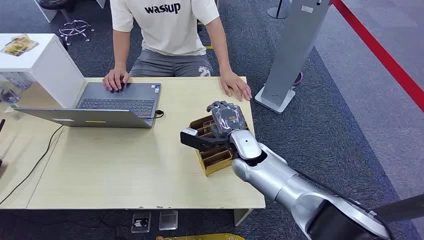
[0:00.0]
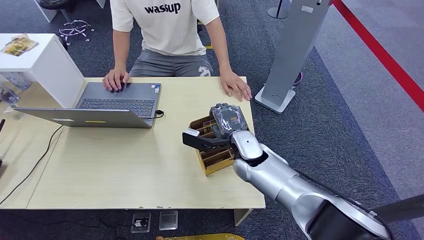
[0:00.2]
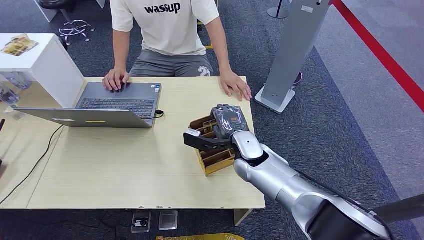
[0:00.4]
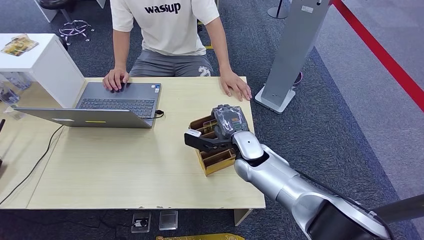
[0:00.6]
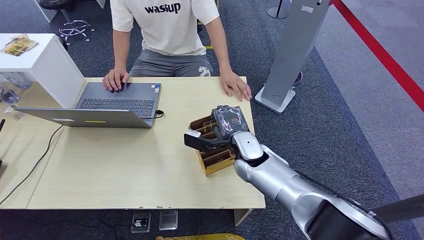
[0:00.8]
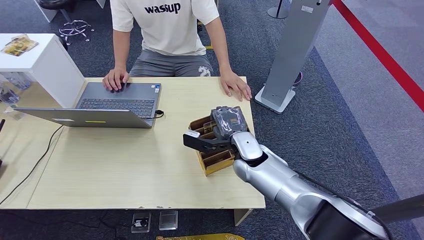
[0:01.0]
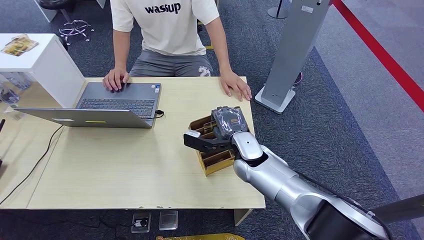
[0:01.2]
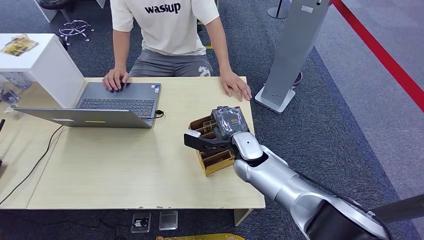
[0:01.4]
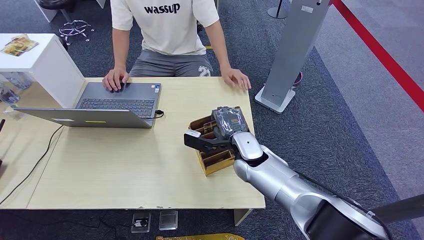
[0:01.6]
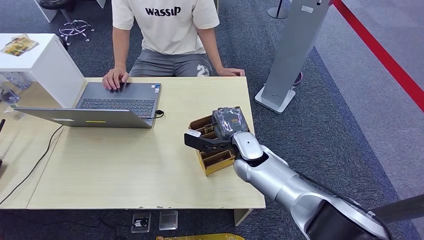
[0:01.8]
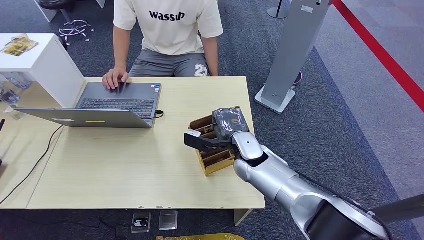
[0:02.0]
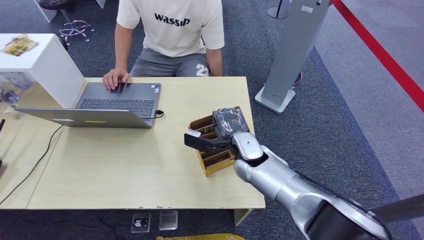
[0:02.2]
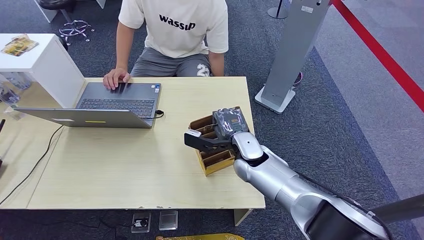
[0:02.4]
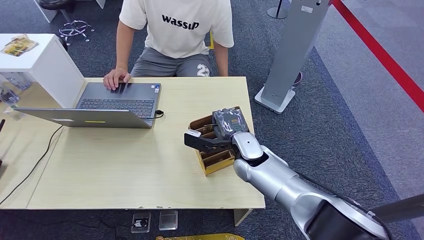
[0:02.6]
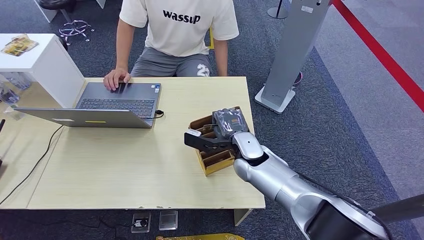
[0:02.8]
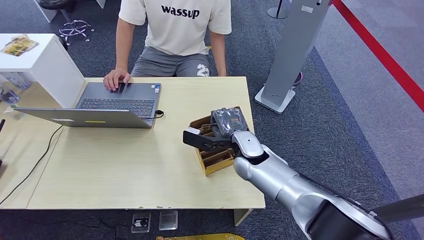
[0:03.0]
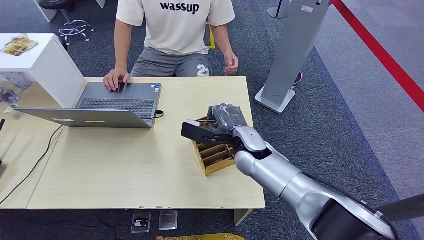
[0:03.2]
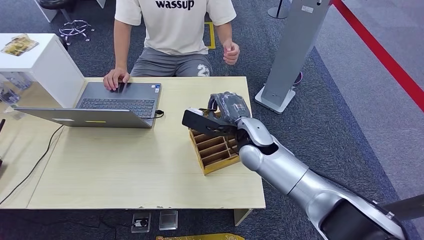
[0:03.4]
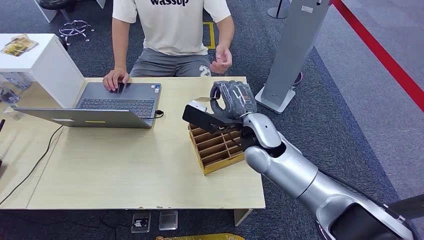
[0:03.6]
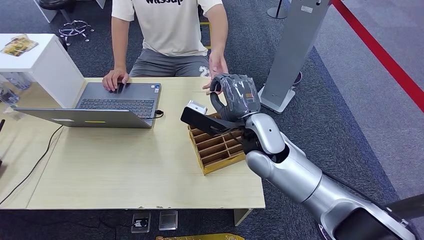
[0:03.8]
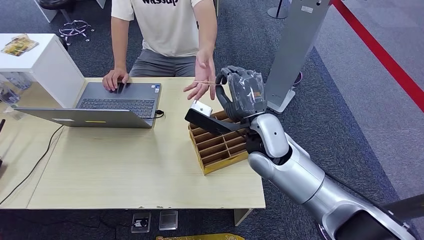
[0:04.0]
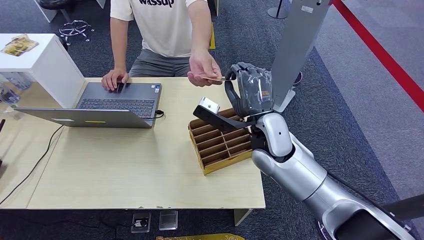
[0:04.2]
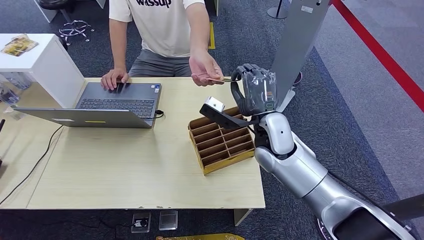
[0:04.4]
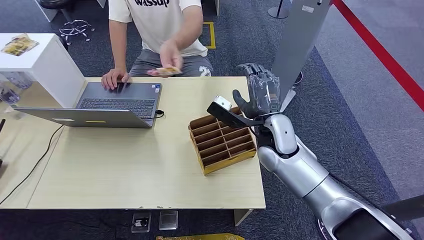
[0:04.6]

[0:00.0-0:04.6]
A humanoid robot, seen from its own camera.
Step, 0:00.0 to 0:03.2: Pick up the key card from the card box.
Step, 0:03.6 to 0:04.4: Hand the key card to the target.
0:01.6 to 0:03.0: The hands stay close to where they were, moving slightly.
0:03.0 to 0:04.6: The right hand travels upward and to the right by about 10 cm.
